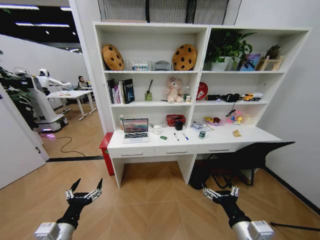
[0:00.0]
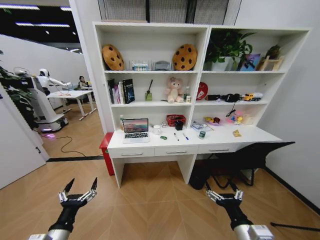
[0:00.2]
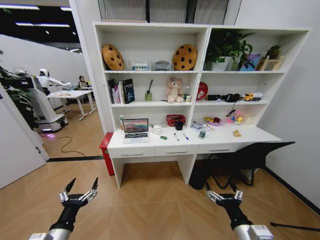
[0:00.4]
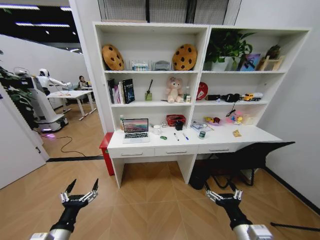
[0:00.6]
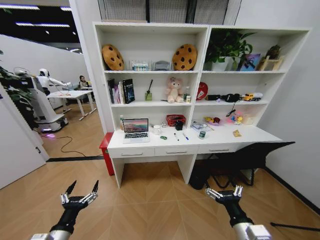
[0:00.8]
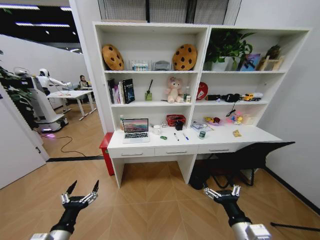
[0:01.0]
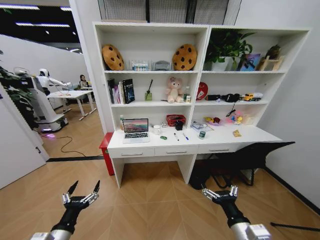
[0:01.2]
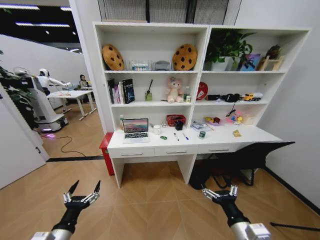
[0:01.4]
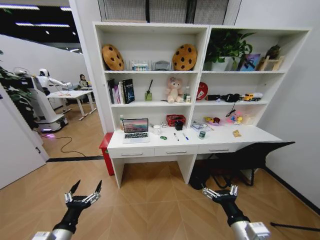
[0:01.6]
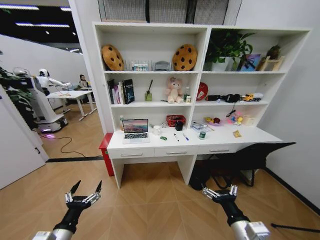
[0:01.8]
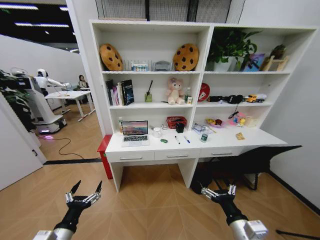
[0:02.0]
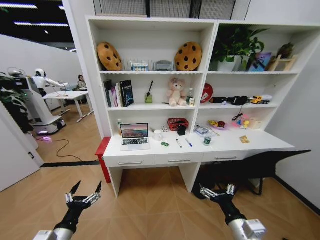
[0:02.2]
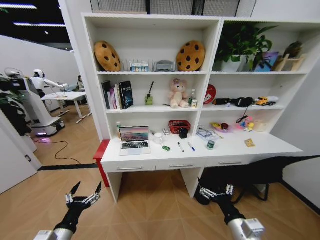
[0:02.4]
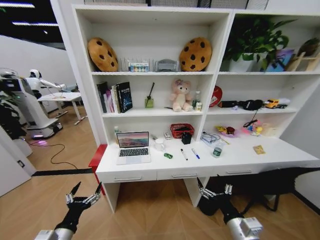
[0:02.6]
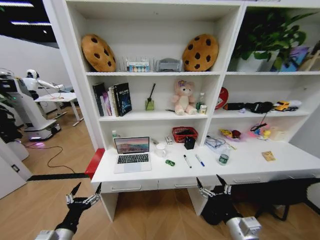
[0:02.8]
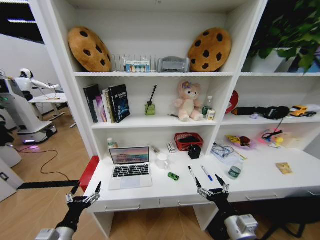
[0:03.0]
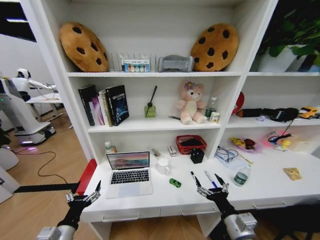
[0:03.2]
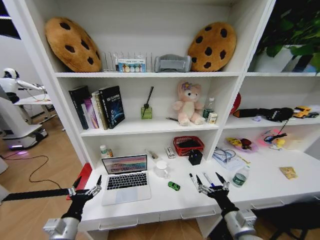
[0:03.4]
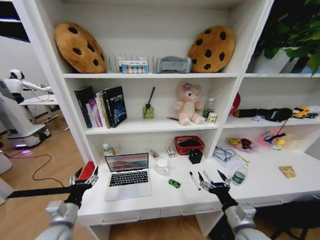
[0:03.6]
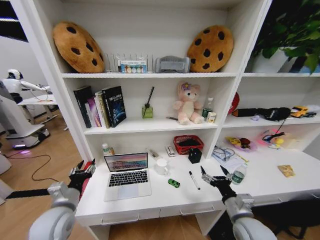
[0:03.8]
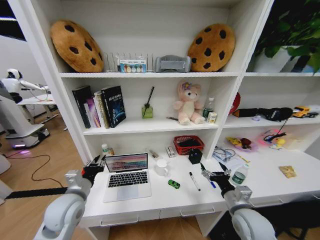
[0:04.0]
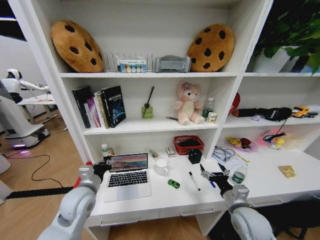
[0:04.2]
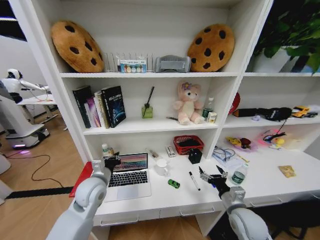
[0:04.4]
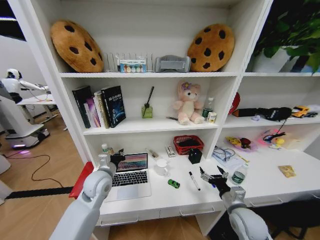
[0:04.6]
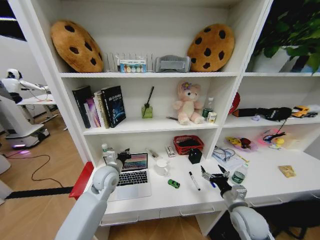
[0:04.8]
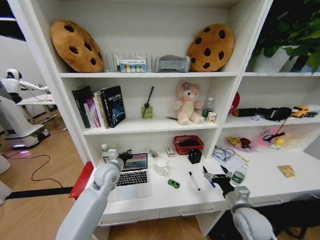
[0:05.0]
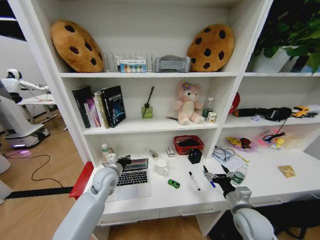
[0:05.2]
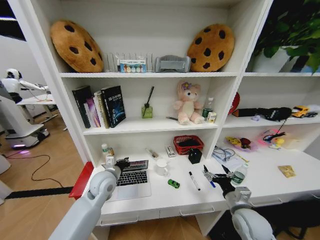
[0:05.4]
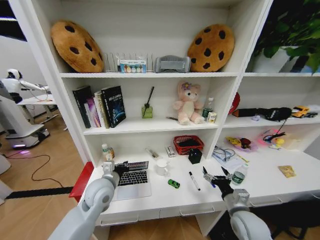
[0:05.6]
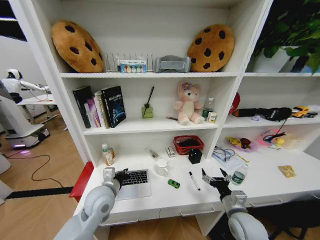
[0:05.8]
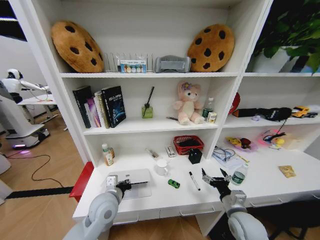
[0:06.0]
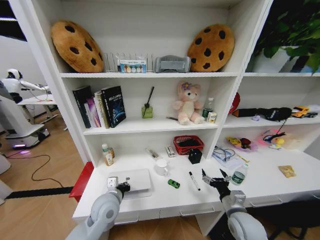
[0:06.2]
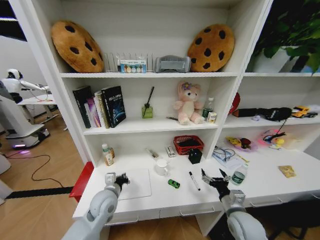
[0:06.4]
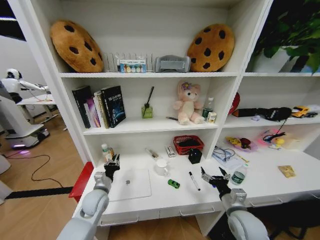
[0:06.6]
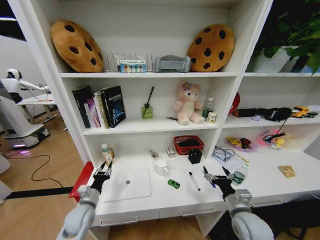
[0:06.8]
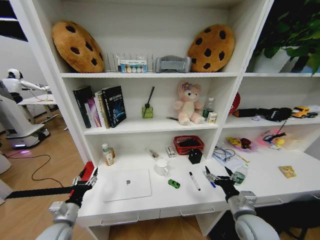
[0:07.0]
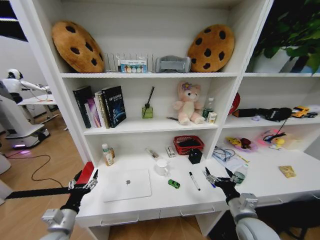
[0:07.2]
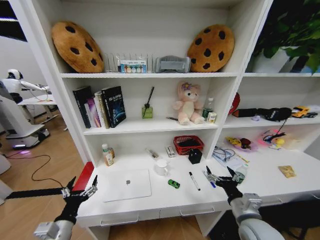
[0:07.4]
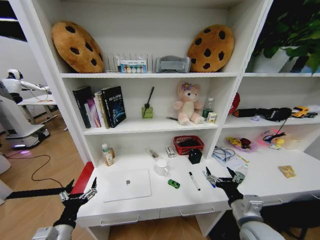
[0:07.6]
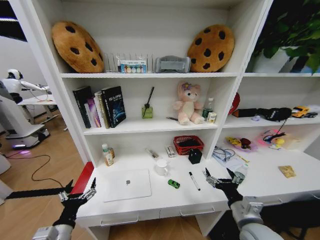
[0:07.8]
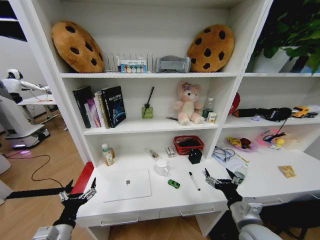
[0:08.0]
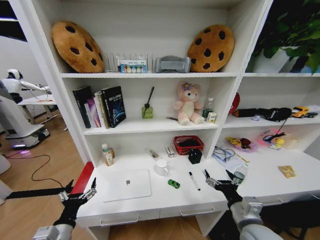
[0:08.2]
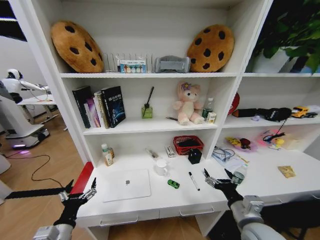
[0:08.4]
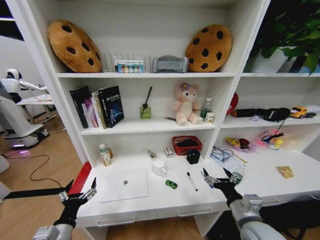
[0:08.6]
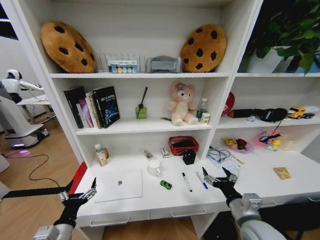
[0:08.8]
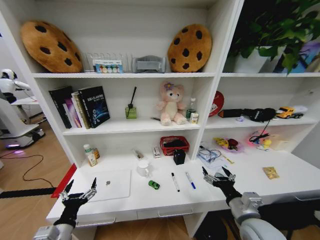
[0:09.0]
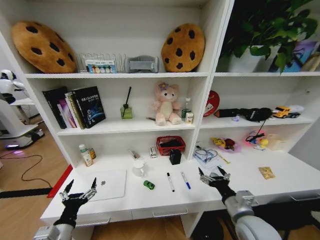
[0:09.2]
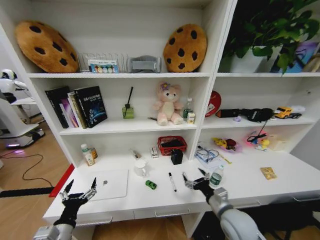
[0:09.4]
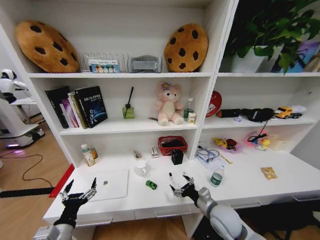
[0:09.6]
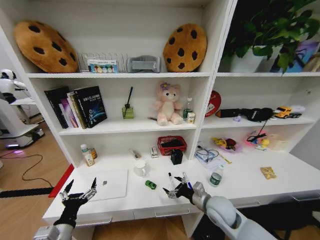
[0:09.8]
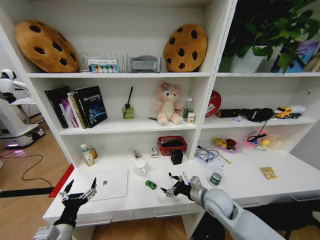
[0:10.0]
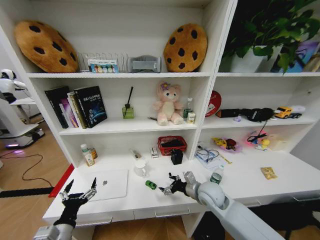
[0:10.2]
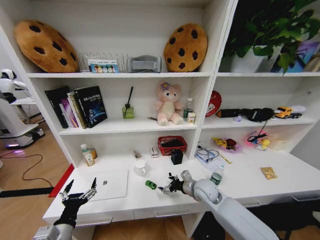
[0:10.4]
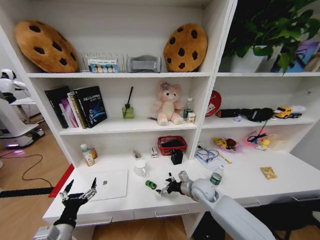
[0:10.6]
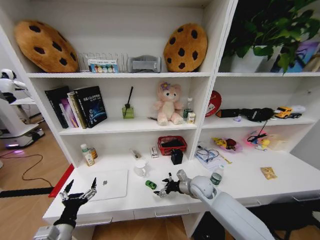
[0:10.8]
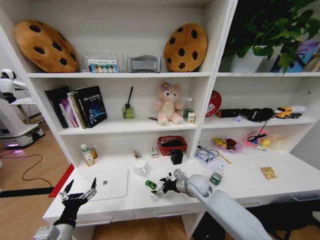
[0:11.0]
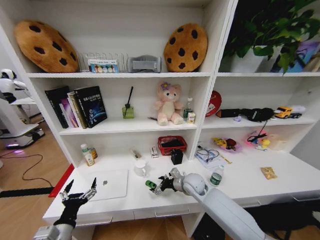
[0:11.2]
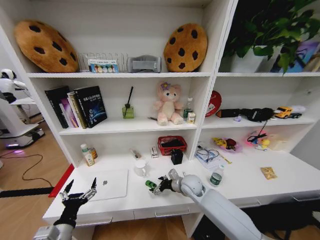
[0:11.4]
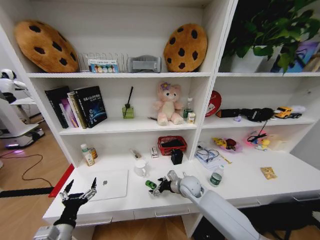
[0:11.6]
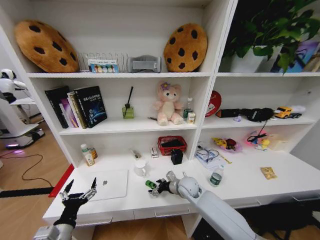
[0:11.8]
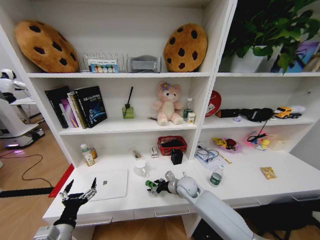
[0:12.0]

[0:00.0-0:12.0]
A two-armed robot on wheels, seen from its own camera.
Task of the whole recording: Organize the objects on the table.
0:03.0 to 0:04.4: The right gripper is displaced forward by some 10 cm. The left gripper heads forward, upward and to the right, covering some 25 cm, and closes up.
0:04.4 to 0:06.0: The left gripper shifts by about 5 cm.
0:06.0 to 0:07.6: The left gripper moves backward and to the left, about 20 cm, and opens; the right gripper goes some 5 cm upward.
0:09.0 to 0:10.4: The right gripper heads forward and to the left, covering about 20 cm.
0:10.4 to 0:12.0: The right gripper moves to the left, about 5 cm.

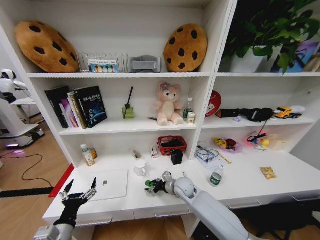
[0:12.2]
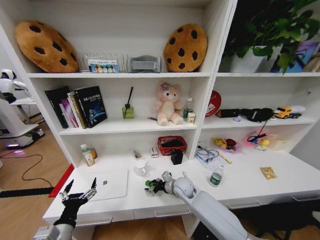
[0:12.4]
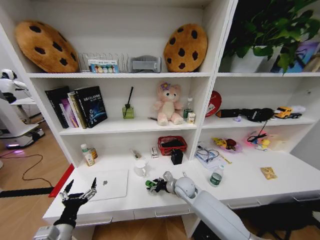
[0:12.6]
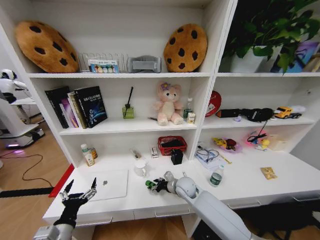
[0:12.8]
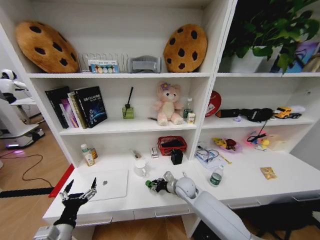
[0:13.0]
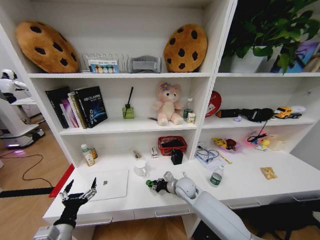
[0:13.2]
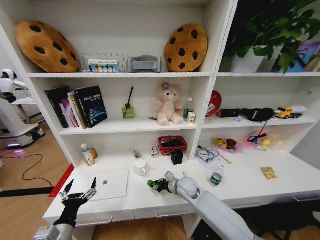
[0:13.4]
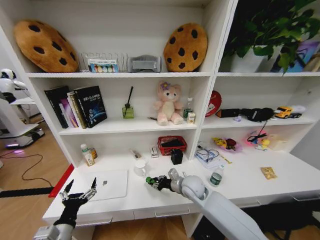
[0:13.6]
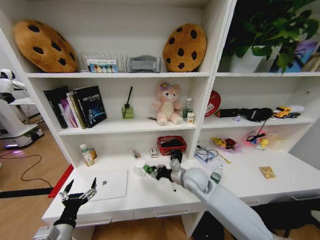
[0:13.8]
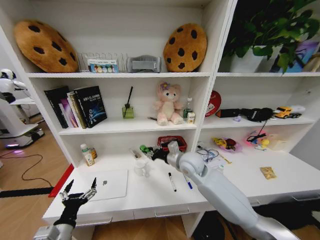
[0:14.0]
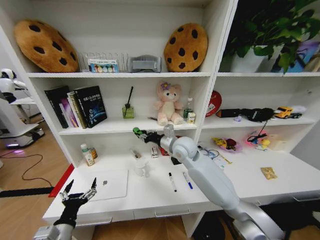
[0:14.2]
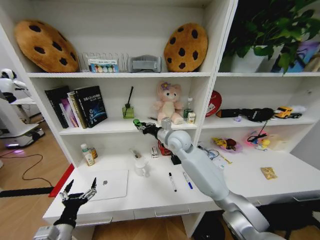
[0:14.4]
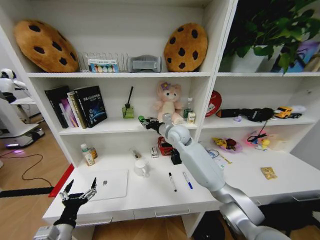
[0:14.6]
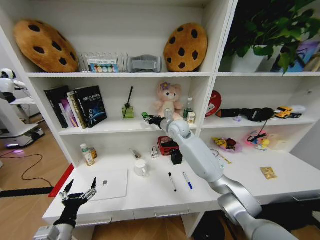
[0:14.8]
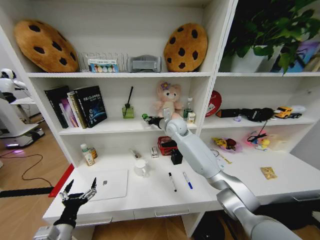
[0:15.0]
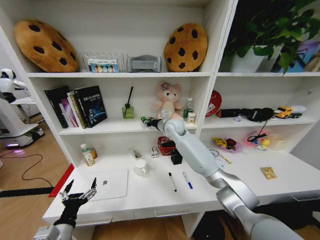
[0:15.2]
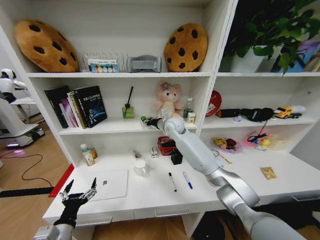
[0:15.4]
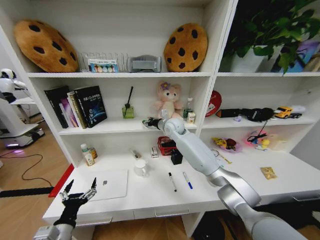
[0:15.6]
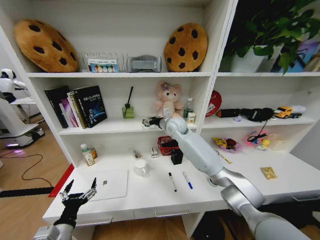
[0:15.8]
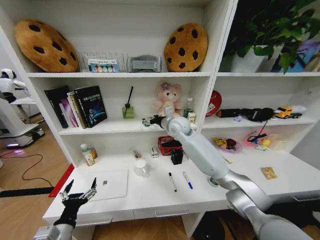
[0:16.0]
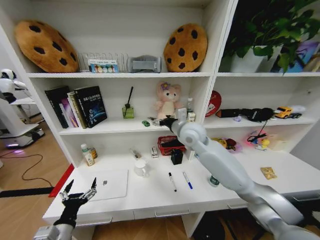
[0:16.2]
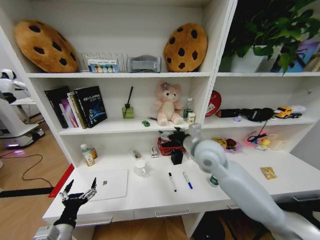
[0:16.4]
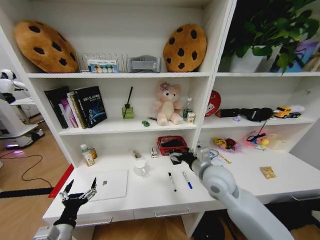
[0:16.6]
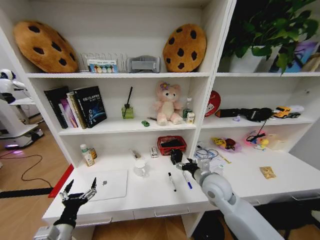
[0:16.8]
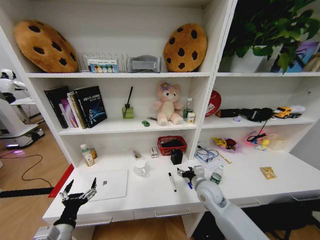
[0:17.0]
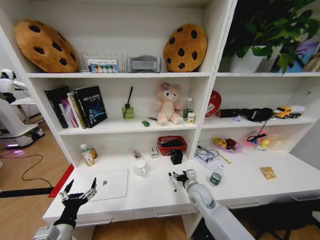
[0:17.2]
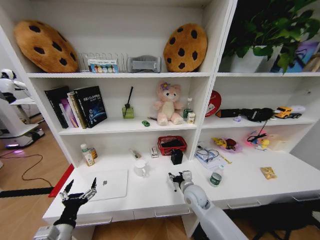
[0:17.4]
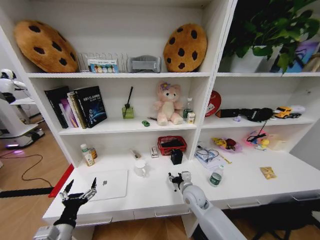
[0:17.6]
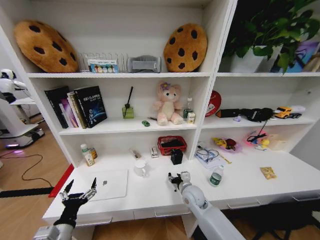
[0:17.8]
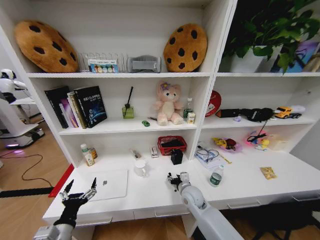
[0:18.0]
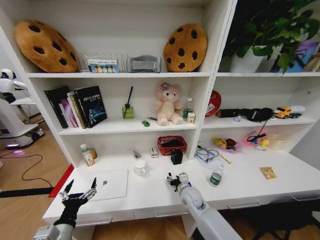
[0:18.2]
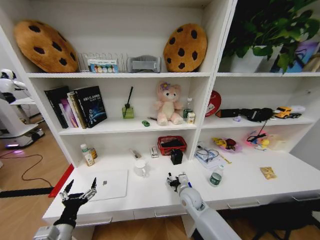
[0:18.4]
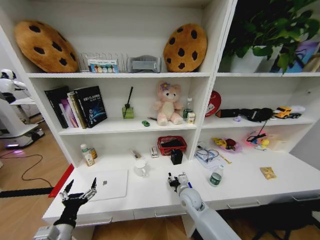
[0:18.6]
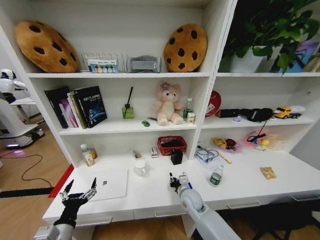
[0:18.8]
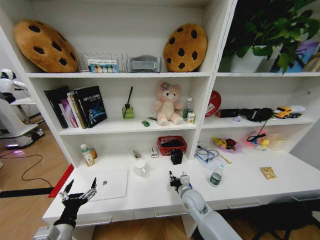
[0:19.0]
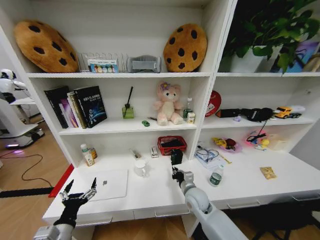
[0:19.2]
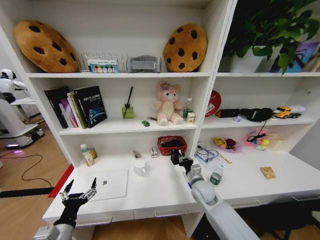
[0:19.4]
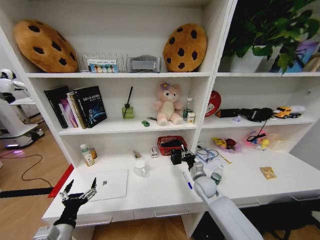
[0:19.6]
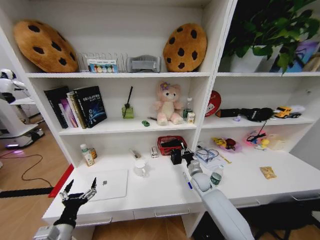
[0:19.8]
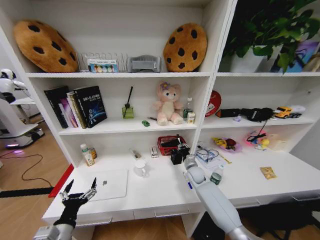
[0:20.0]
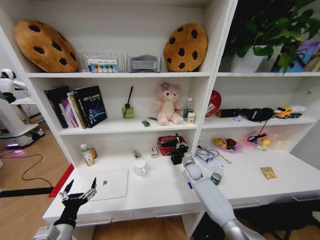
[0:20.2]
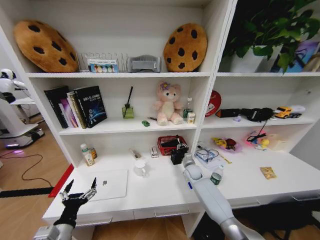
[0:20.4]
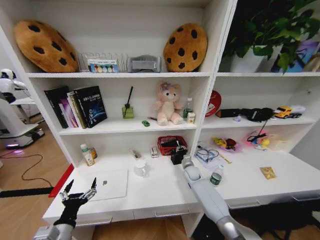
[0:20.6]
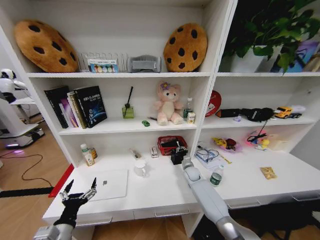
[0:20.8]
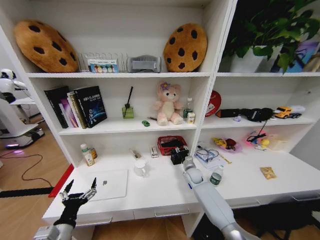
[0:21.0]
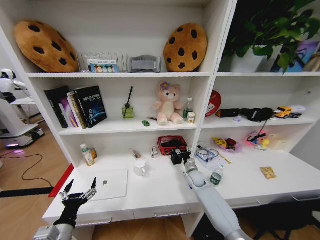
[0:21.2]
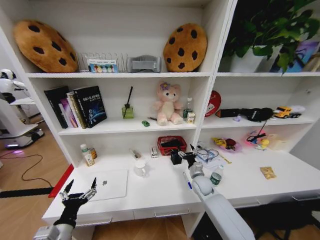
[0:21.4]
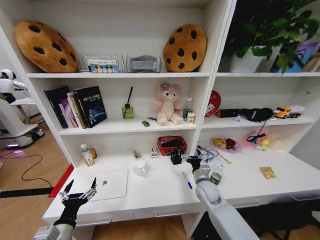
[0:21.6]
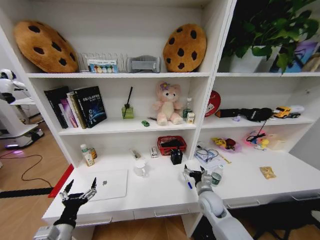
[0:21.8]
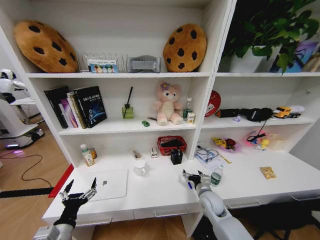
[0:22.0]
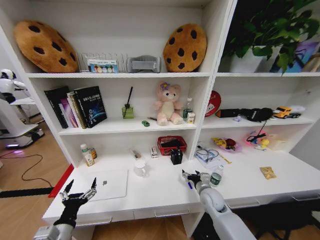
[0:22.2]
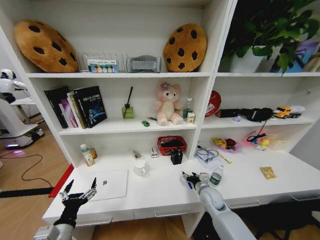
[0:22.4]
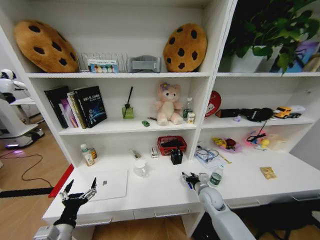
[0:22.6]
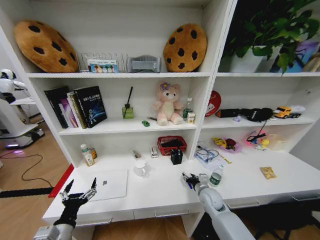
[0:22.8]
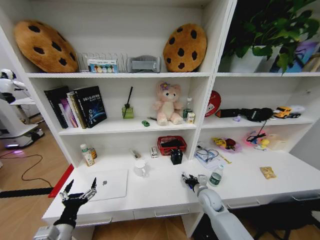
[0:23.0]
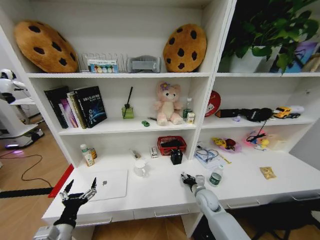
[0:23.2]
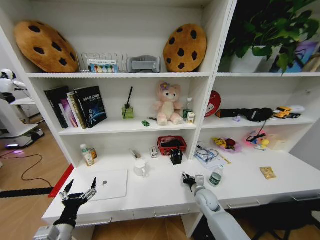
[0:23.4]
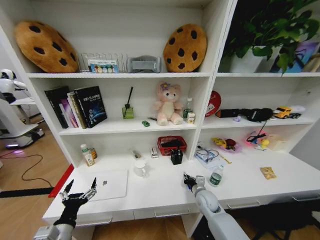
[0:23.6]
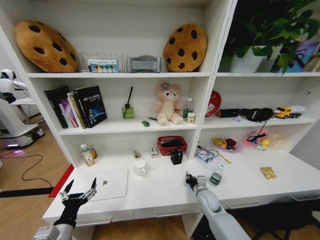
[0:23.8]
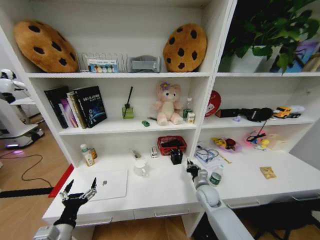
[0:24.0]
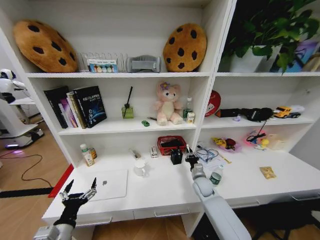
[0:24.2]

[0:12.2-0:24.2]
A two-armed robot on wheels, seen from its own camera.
Task of the whole recording: Organize the objects on the table.
0:12.2 to 0:13.8: The right gripper shifts approximately 10 cm upward, and closes up.
0:13.8 to 0:15.2: The right gripper moves forward and upward, roughly 25 cm.
0:15.2 to 0:16.6: The right gripper goes approximately 25 cm backward and to the right, and opens its fingers.
0:16.6 to 0:18.2: The right gripper heads downward, covering about 20 cm.
0:18.2 to 0:19.8: The right gripper moves forward and to the right, about 10 cm, and closes up.
0:19.8 to 0:21.2: The right gripper opens its fingers.
0:21.2 to 0:22.6: The right gripper moves backward, about 10 cm.
0:22.6 to 0:24.2: The right gripper closes up.
